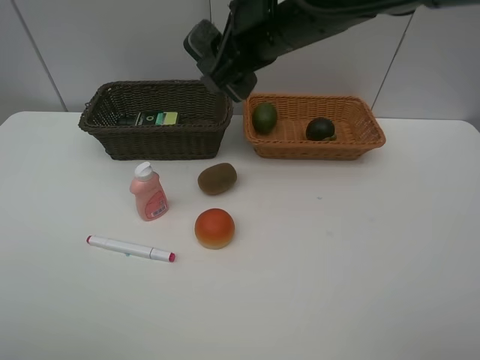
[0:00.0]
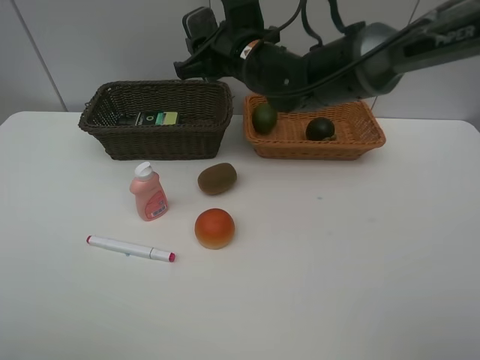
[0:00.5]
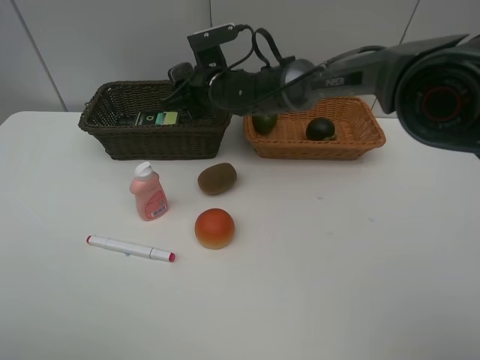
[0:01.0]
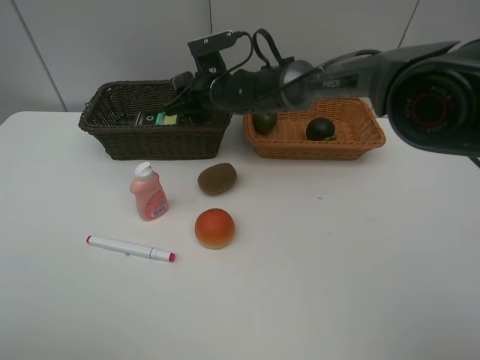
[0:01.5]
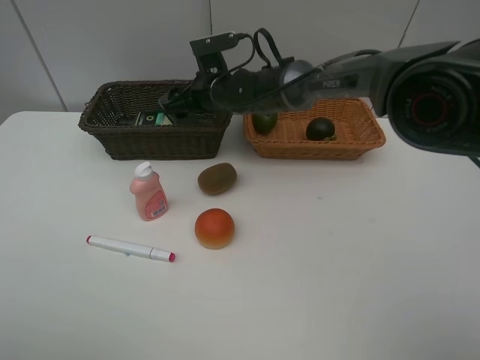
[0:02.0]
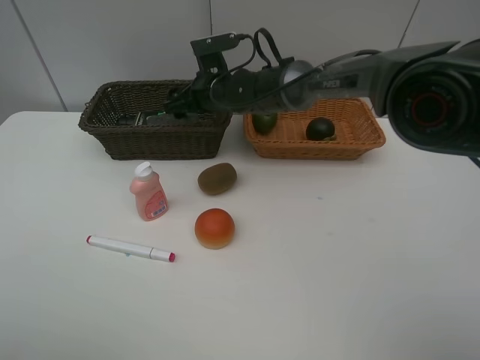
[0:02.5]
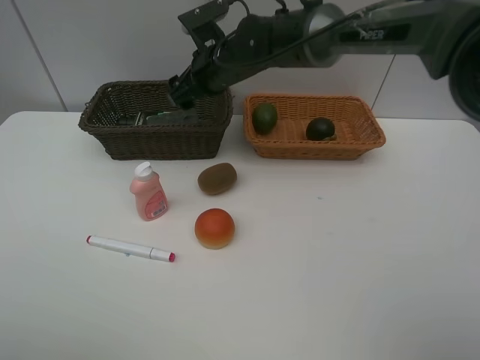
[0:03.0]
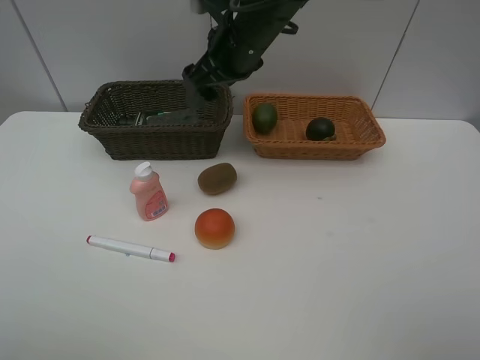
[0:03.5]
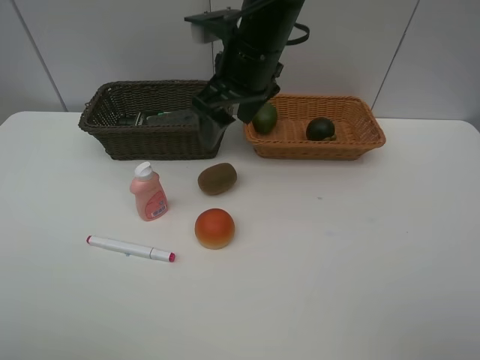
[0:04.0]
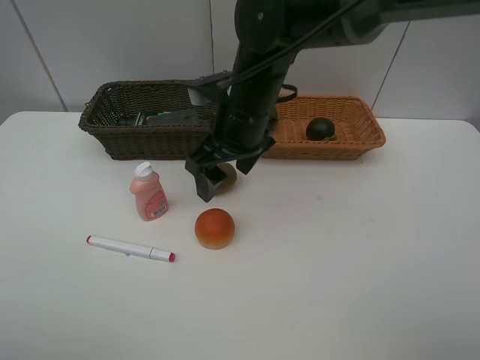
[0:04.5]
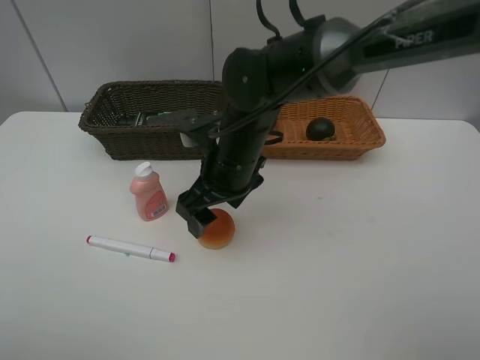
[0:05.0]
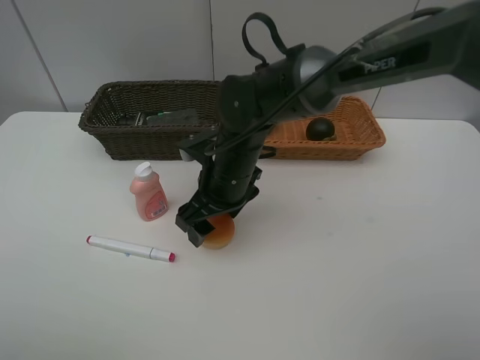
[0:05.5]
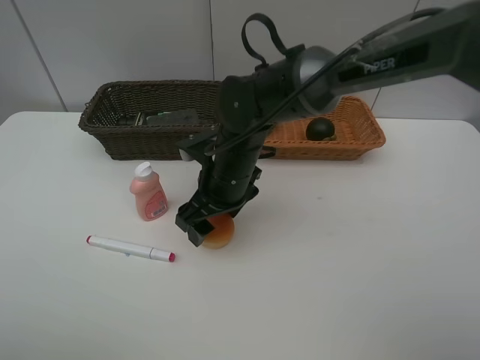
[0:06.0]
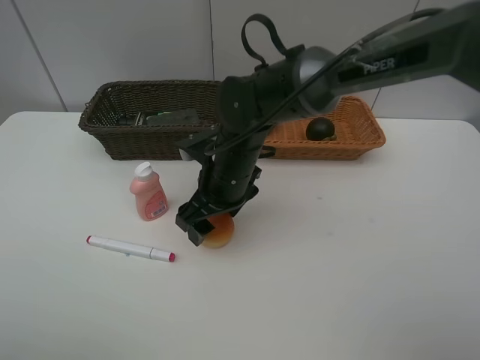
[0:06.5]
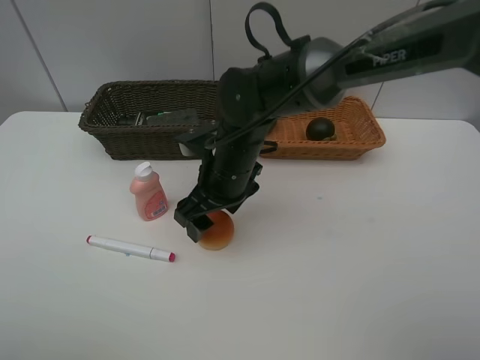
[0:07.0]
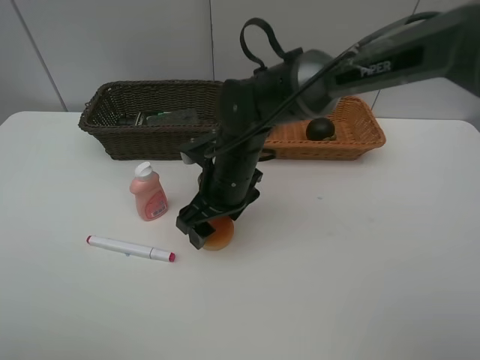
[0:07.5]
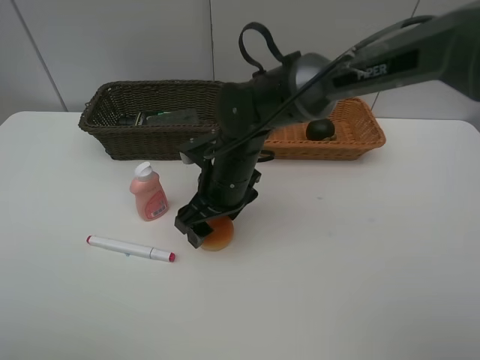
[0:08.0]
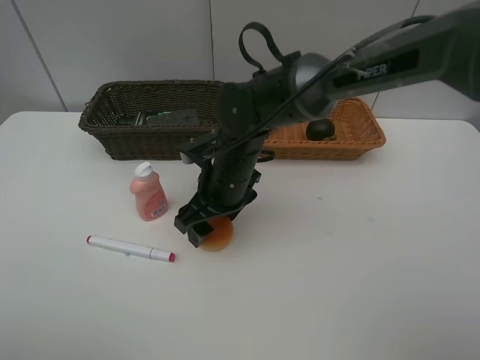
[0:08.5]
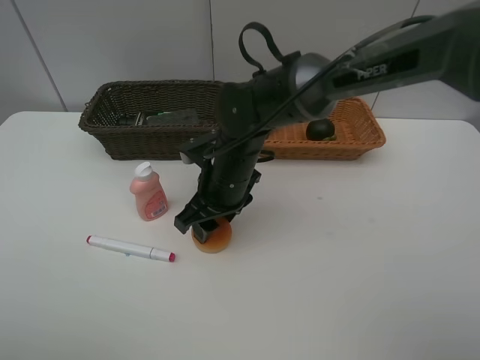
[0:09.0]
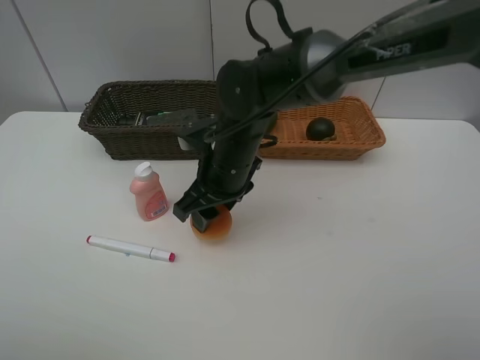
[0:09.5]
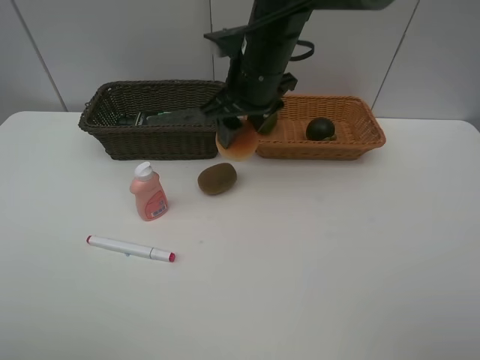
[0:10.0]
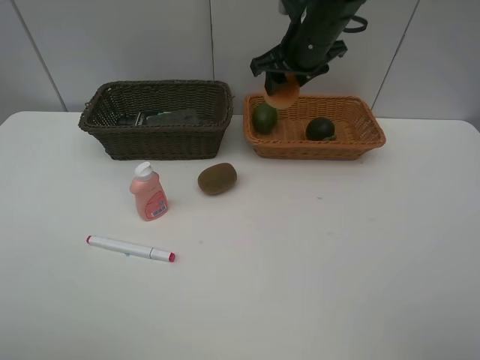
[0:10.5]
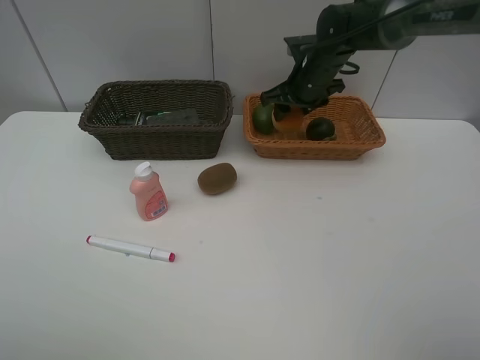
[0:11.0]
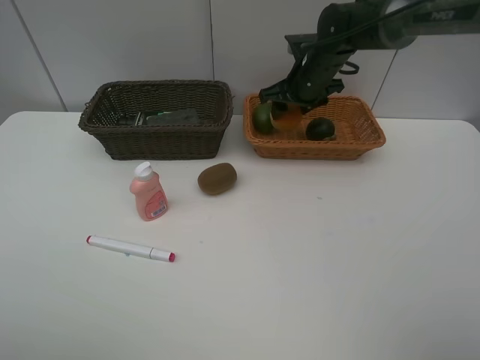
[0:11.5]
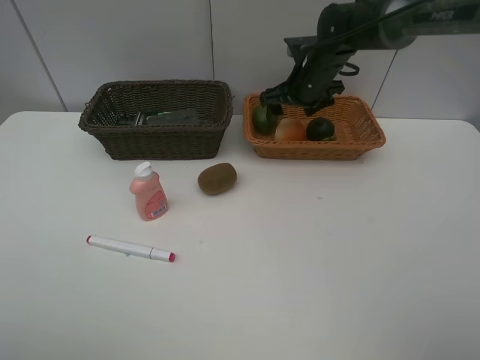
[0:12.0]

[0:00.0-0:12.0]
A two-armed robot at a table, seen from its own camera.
Task of the whole recording: Place multiple objects separately in different baskets.
Step, 0:00.0 to 0:02.5: Place the blackboard eraser in the dark basket with right gripper.
Step, 0:03.0 to 0:09.5: Pick up egg yolk pastry with right gripper.
0:00.0 to 0:02.0: The right gripper goes roughly 20 cm downward, forward and to the left, and opens.
0:02.0 to 0:04.0: The right gripper shifts approximately 15 cm upward and backward.
0:04.0 to 0:06.0: The right gripper moves downward, approximately 15 cm.
0:06.0 to 0:08.0: Neither gripper changes place.
0:08.0 to 0:10.0: The right gripper moves upward and forward, some 15 cm, and closes.
0:10.0 to 0:12.0: The right gripper heads forward, to the right and downward, covering roughly 15 cm, and opens.

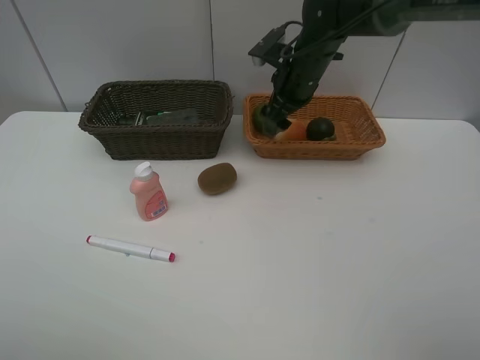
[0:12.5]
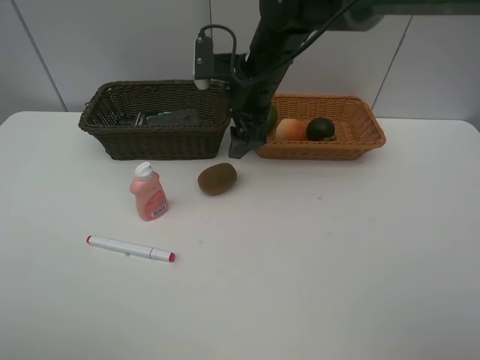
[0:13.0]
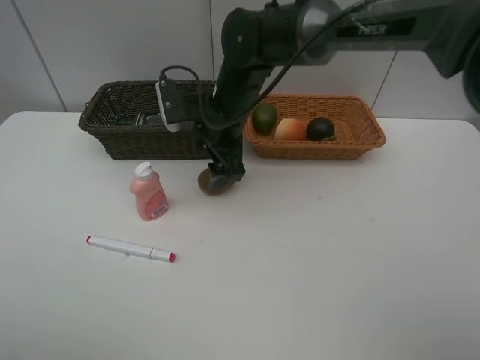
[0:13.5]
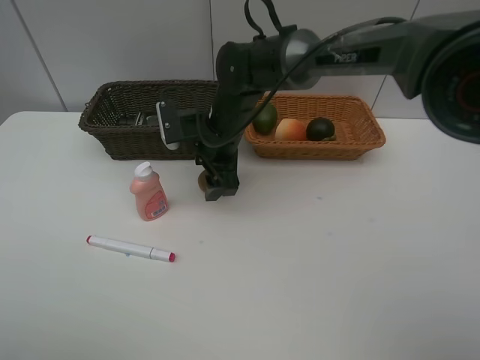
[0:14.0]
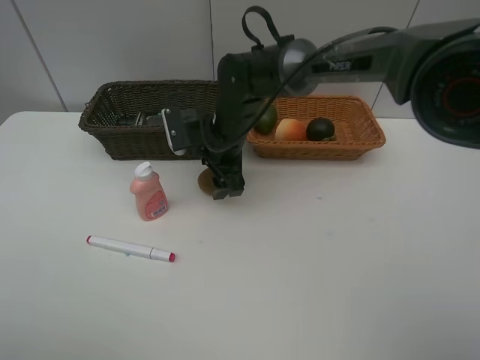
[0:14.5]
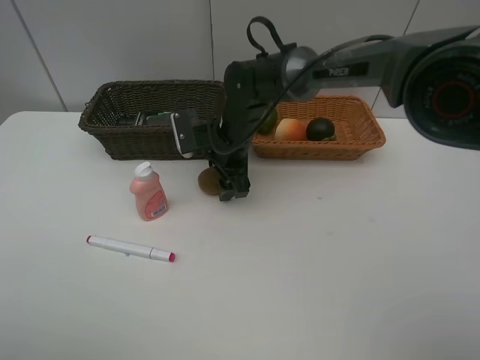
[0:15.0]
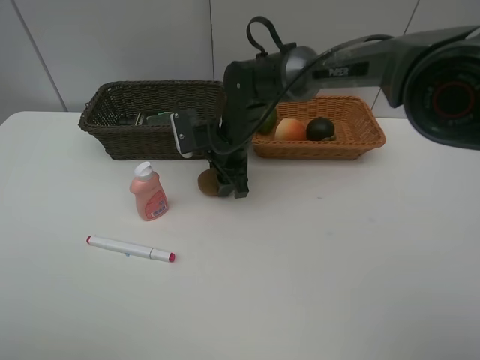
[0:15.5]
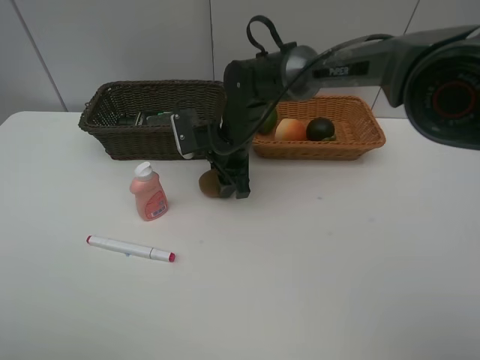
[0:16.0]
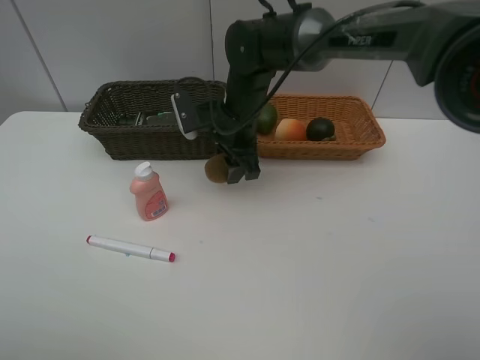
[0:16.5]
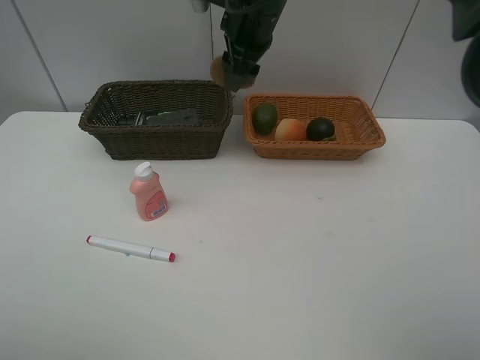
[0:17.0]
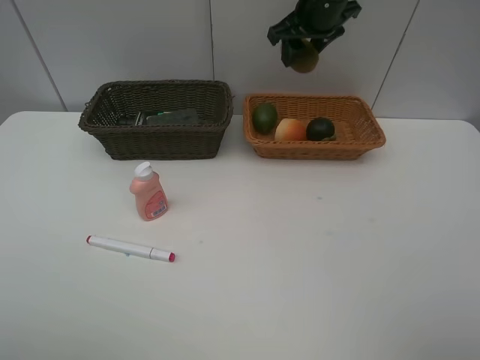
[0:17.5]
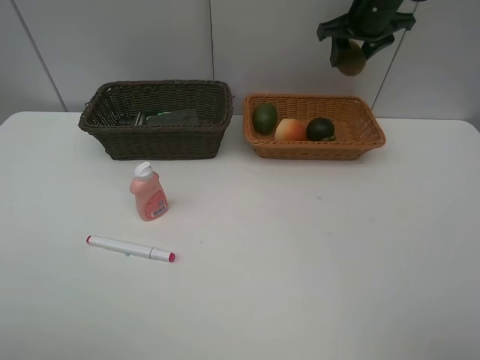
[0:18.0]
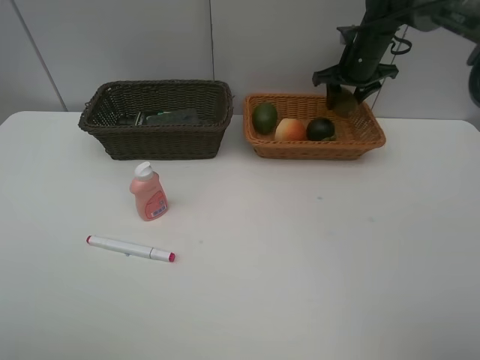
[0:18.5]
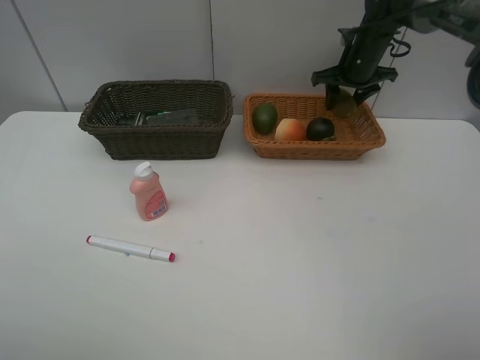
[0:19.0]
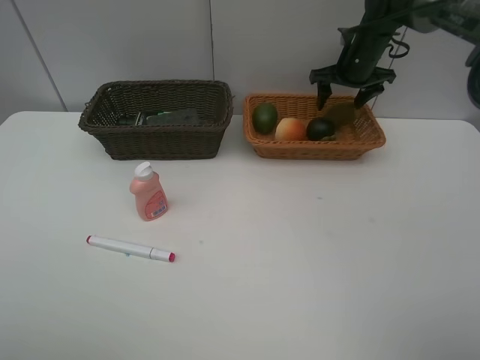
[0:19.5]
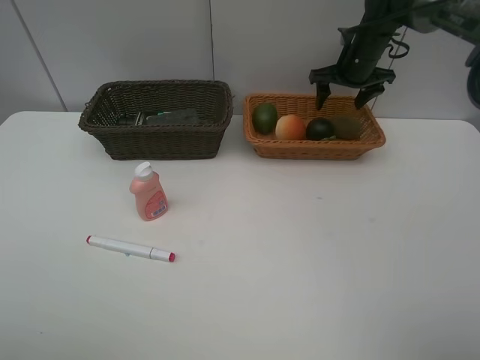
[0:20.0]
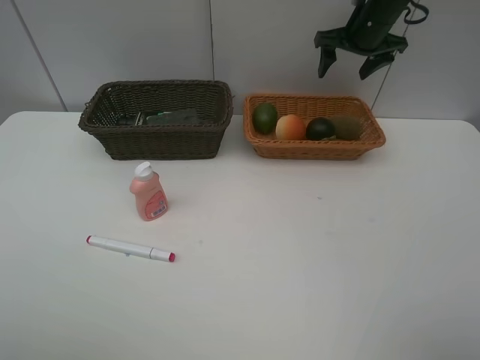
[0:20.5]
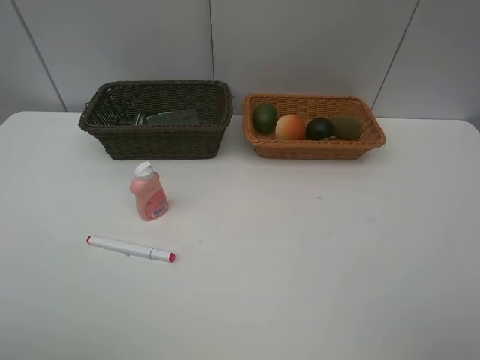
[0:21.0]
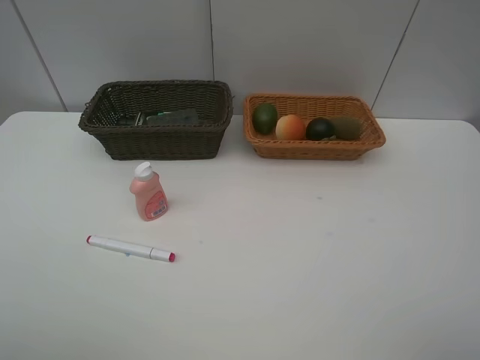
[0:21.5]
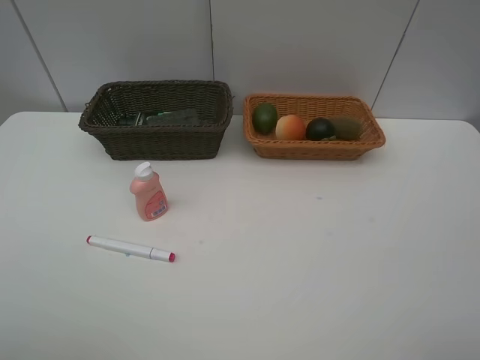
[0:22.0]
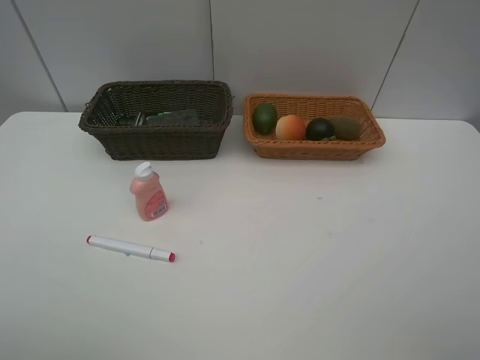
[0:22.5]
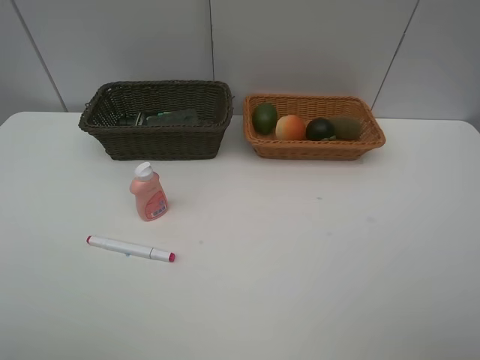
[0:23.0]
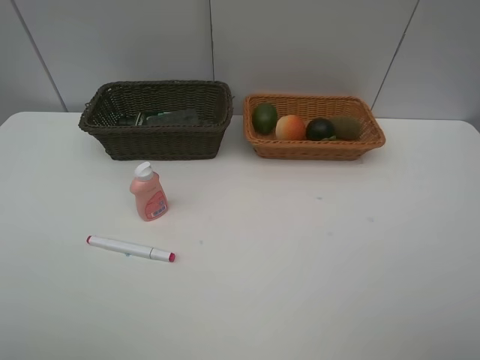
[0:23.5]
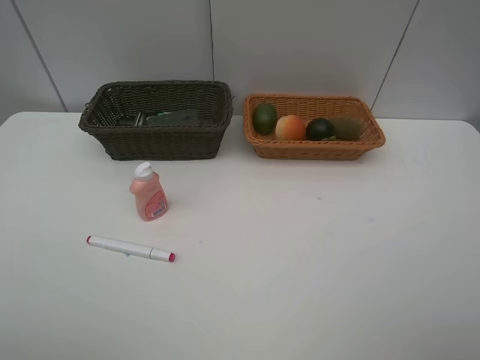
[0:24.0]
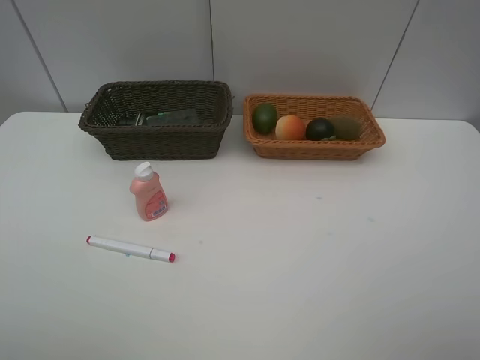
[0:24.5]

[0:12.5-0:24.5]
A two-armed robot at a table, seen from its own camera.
Task of the whole recording: Place multiple objects separately in different baskets.
Step, 0:12.5 to 0:16.0: Pick up kiwi with right gripper.
Step, 0:16.5 to 0:19.5: Place the kiwi in the light basket with right gripper.
0:12.5 to 0:14.5: The right gripper travels to the left, downward and backward by approximately 15 cm.
0:14.5 to 0:16.5: The right gripper ends up about 5 cm from where it was, and closes its fingers.
0:16.5 to 0:18.5: The right gripper moves to the right and forward, some 25 cm.
0:18.5 to 0:20.5: The right gripper travels upward by approximately 5 cm, and opens up.
0:20.5 to 0:22.5: The right gripper shifts approximately 40 cm backward.

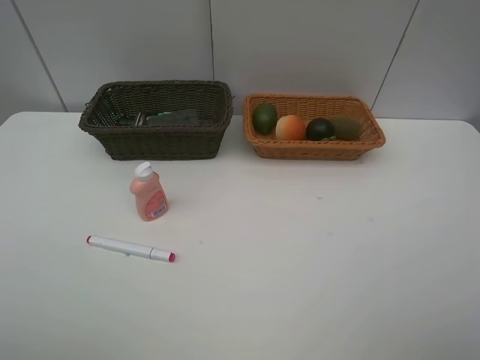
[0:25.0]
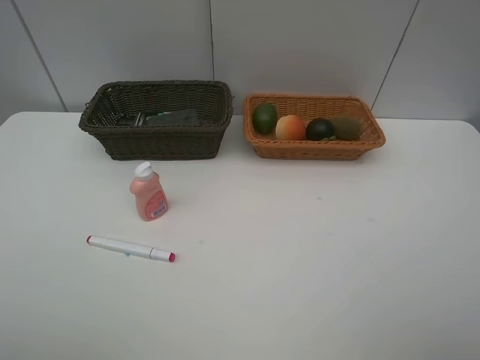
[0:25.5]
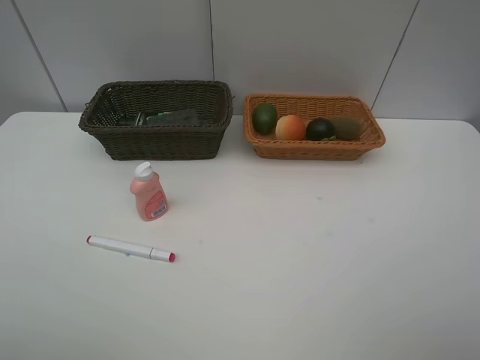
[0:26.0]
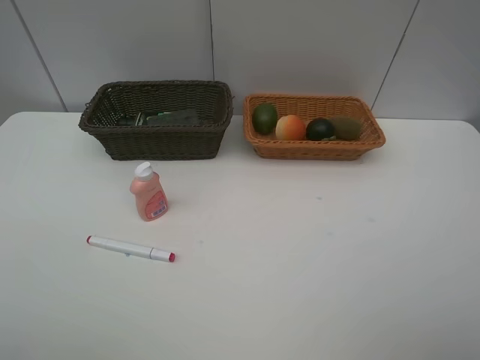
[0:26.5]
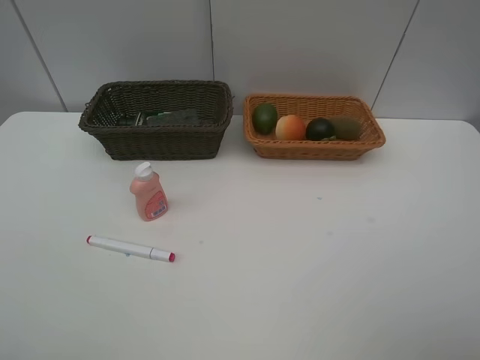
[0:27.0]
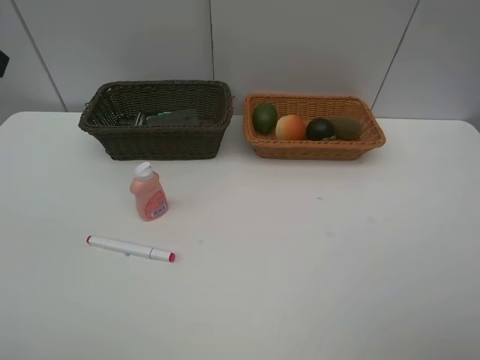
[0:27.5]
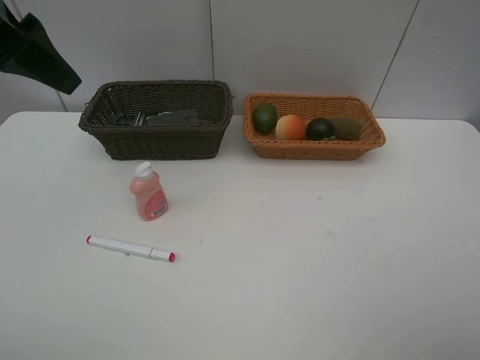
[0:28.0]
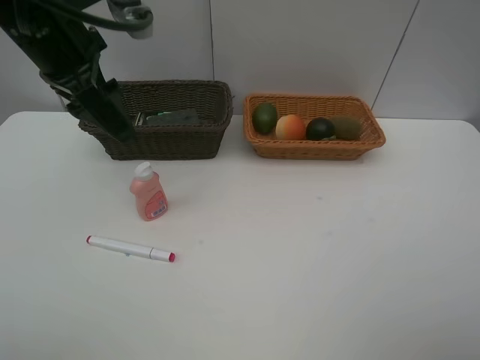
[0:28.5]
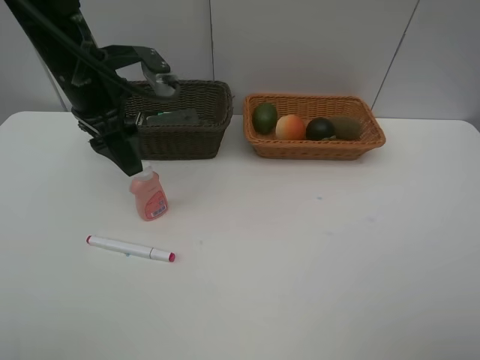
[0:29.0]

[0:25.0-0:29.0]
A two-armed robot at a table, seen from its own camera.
Task of the whole recording: Place multiple objects separately in different baskets.
0:27.0 to 0:29.0: The left gripper heads forward, downward and to the right, covering about 30 cm.
